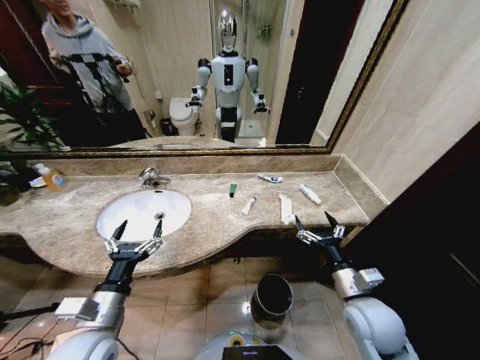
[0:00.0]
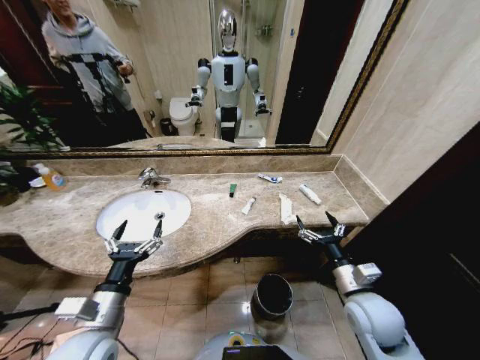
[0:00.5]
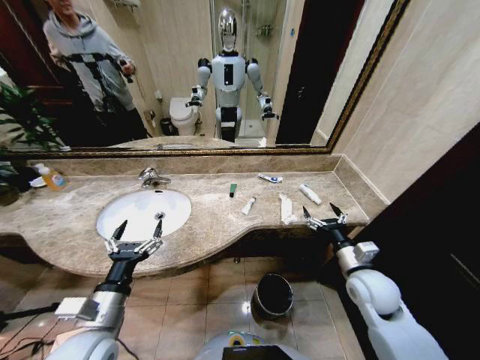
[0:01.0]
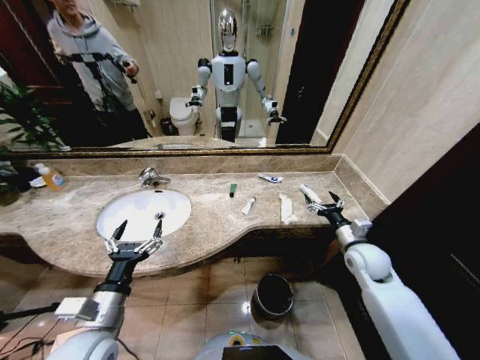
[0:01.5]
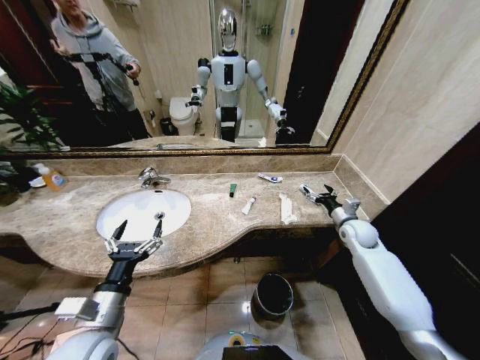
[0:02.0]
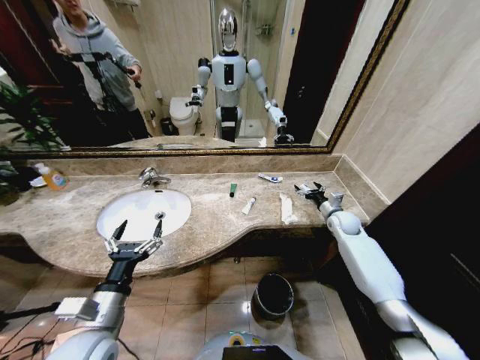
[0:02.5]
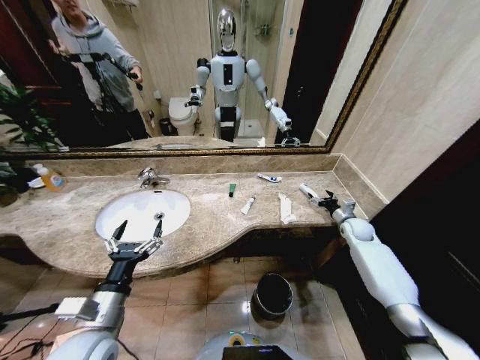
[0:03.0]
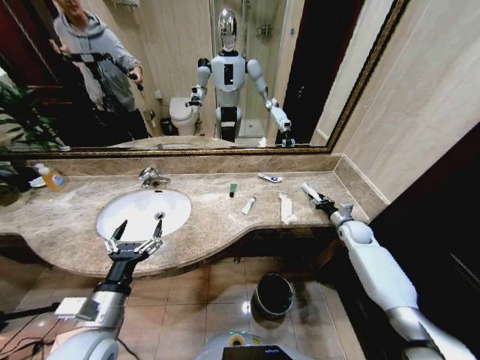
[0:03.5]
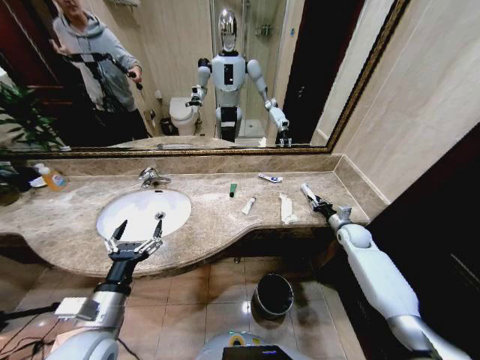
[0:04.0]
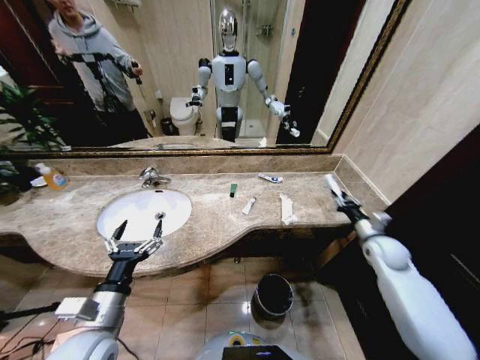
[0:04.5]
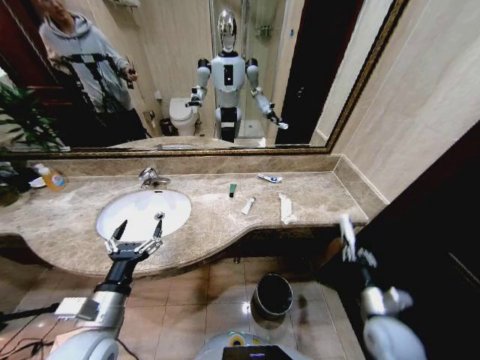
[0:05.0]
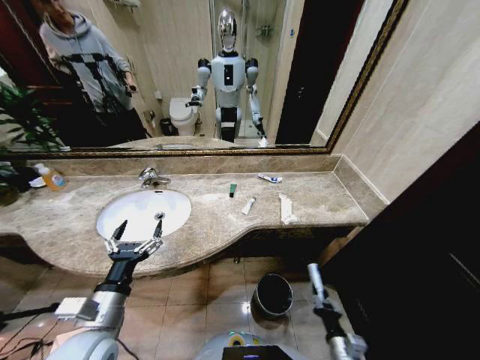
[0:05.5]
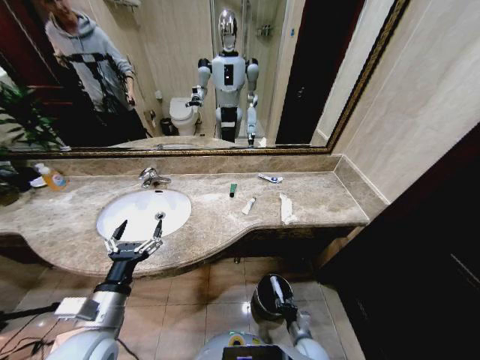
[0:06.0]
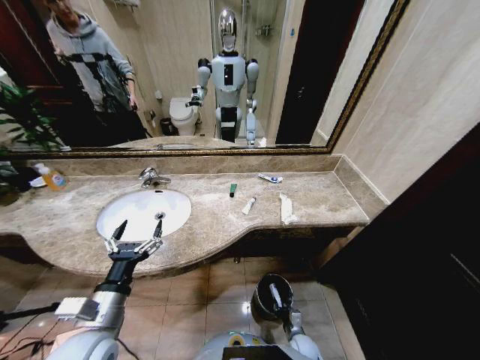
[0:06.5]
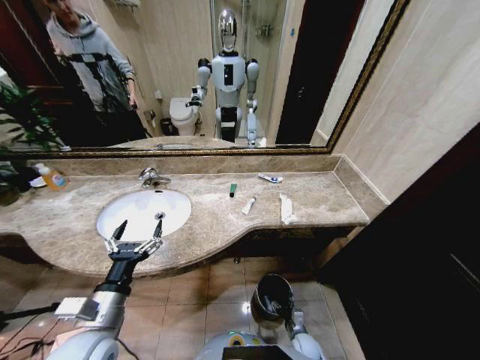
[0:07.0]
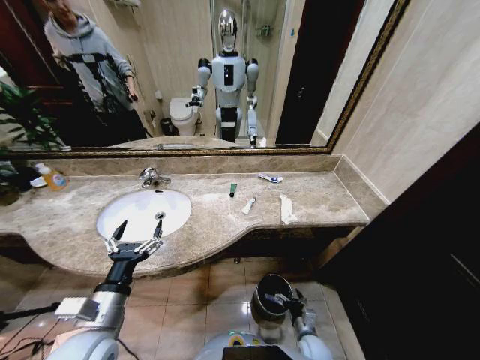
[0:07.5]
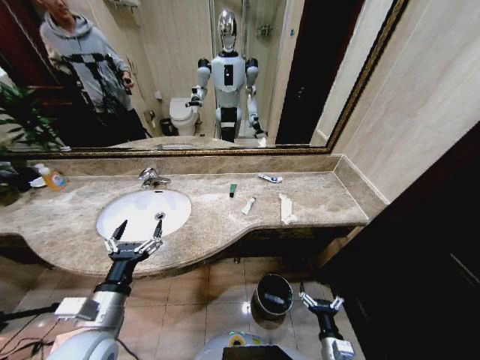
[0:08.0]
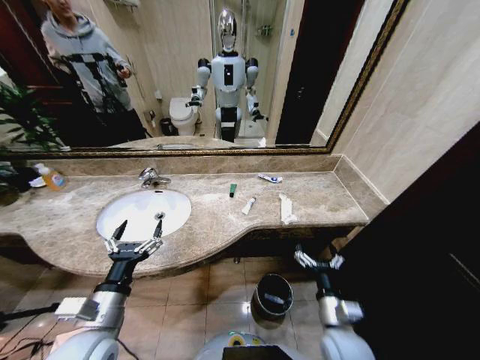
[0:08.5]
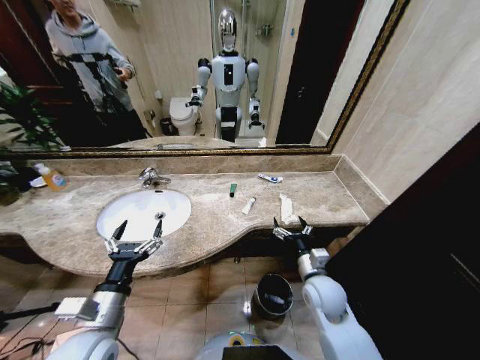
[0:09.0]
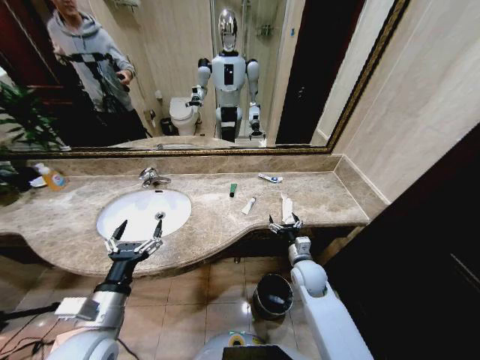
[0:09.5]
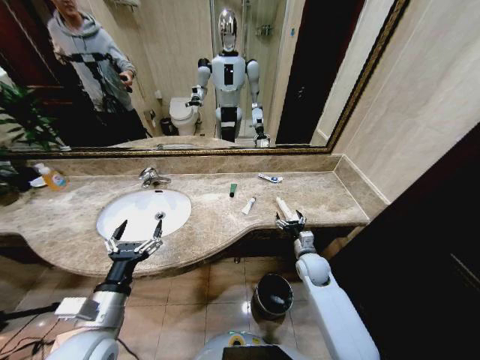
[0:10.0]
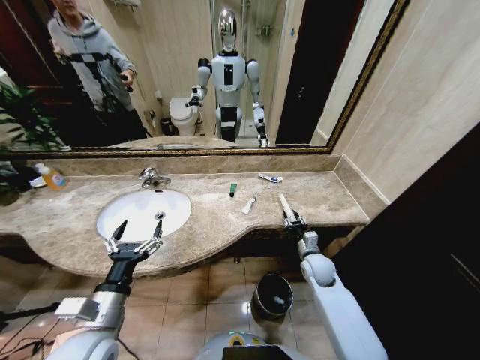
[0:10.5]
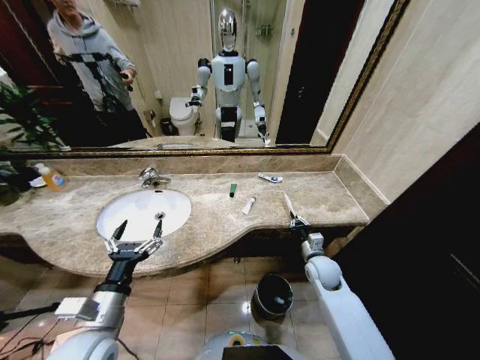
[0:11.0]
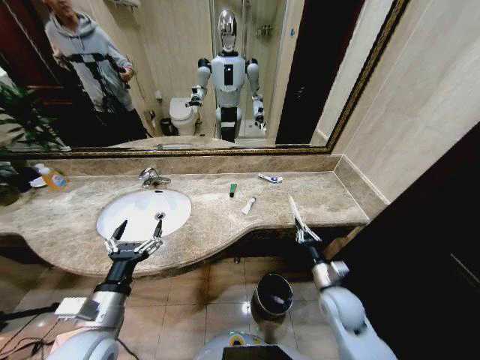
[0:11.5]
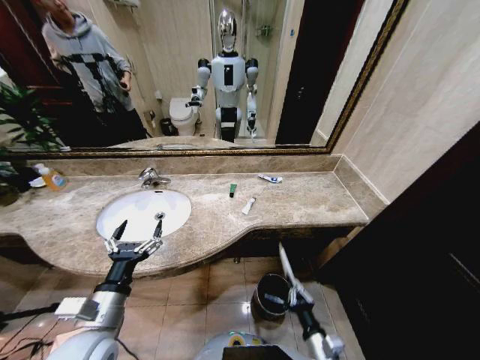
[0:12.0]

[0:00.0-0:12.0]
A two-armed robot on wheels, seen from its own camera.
Task of the whole recording: Pick up the trash from the sink and place it in the trash bin.
0:02.0 to 0:04.0: The right gripper goes some 5 cm downward, and closes.
0:04.0 to 0:06.0: The right gripper is displaced backward, downward and to the left by about 40 cm.
0:06.0 to 0:08.0: The right gripper moves upward and backward, about 10 cm, and opens its fingers.
0:08.0 to 0:10.0: The right gripper moves forward, roughly 25 cm.
0:10.0 to 0:12.0: The right gripper heads backward, covering approximately 25 cm, and closes its fingers.

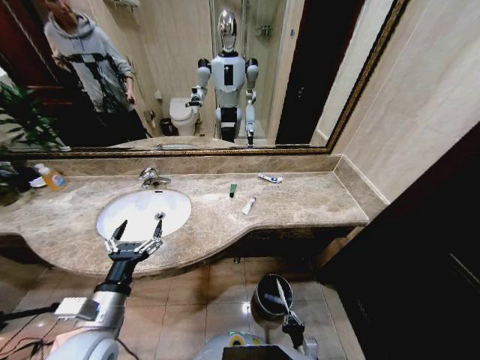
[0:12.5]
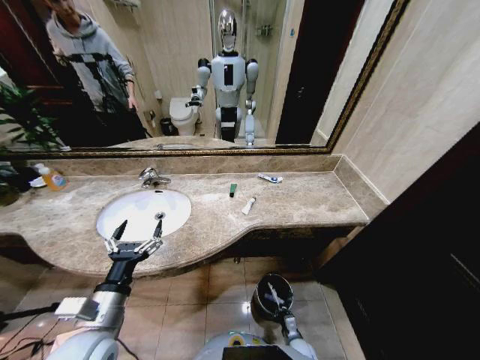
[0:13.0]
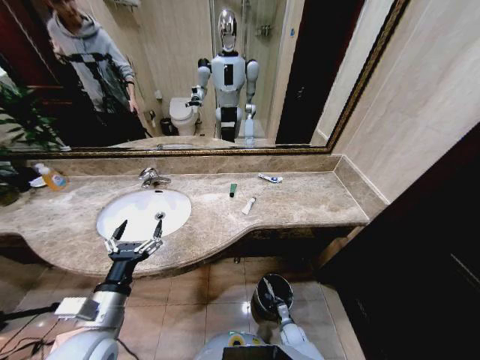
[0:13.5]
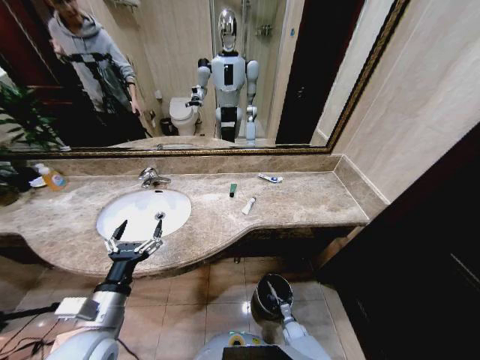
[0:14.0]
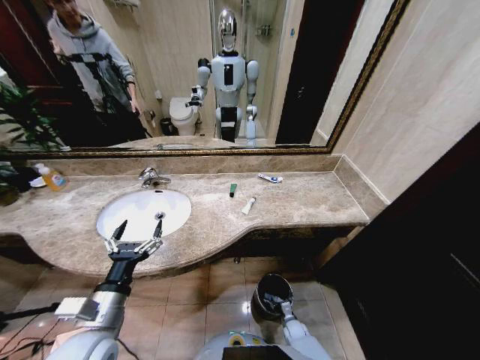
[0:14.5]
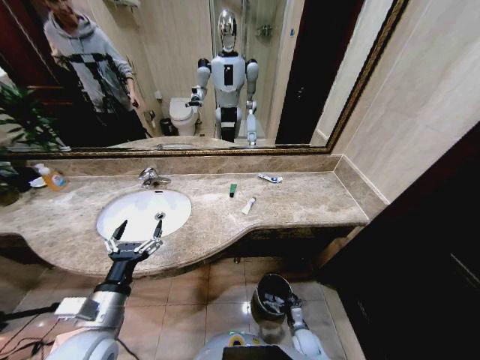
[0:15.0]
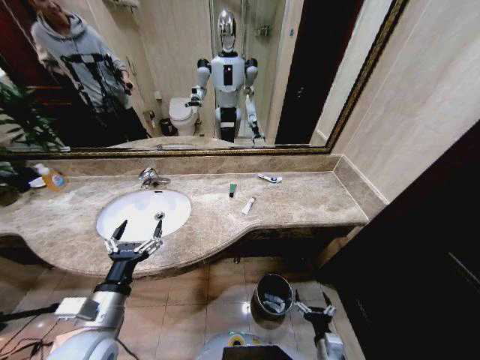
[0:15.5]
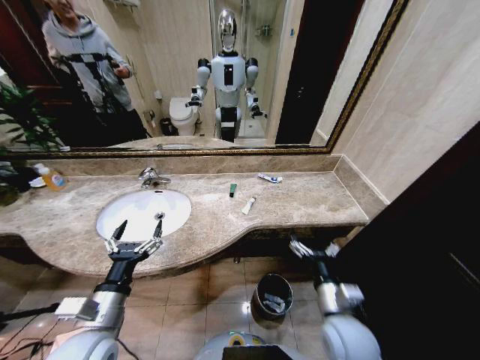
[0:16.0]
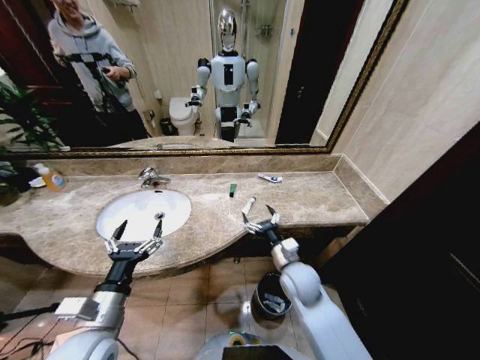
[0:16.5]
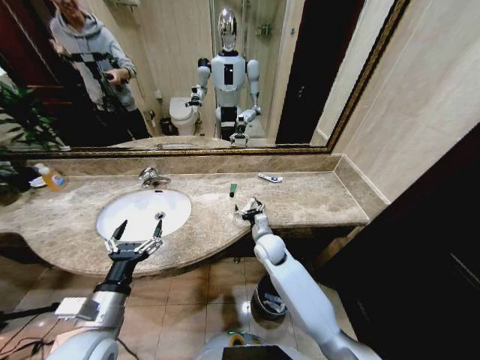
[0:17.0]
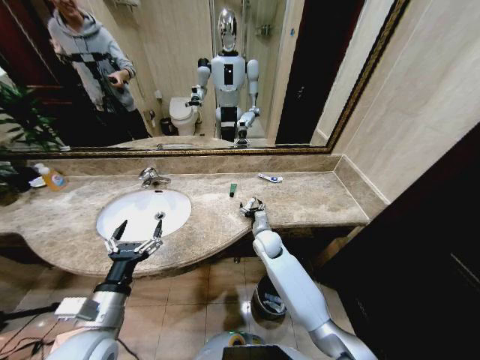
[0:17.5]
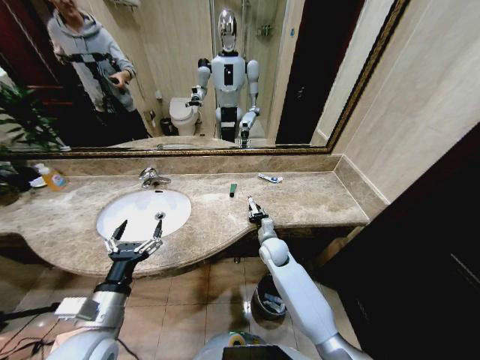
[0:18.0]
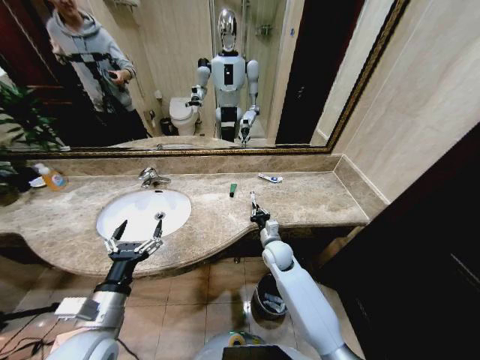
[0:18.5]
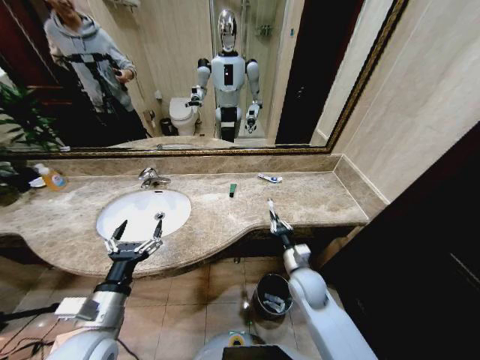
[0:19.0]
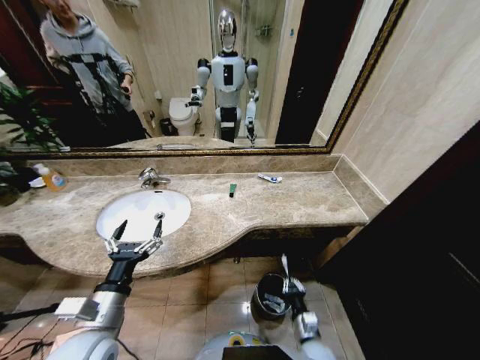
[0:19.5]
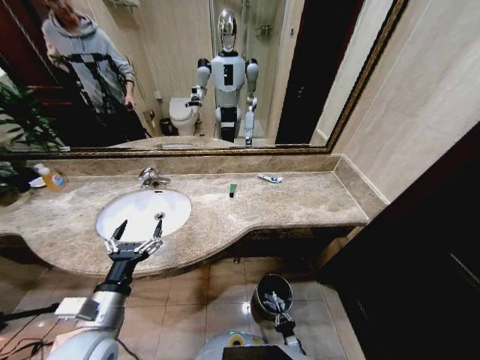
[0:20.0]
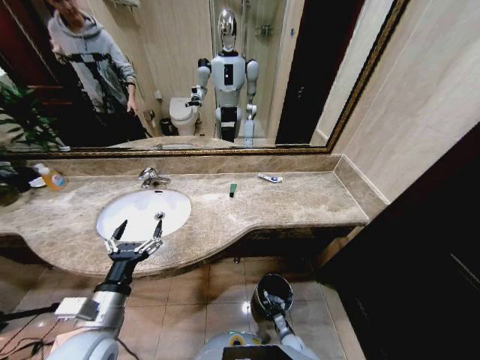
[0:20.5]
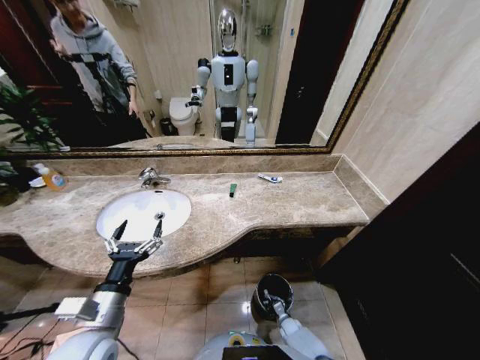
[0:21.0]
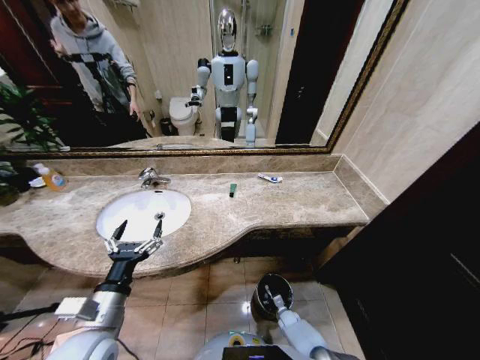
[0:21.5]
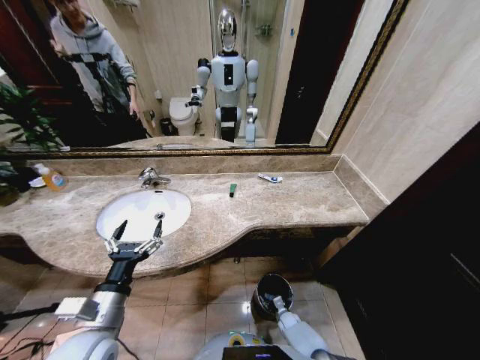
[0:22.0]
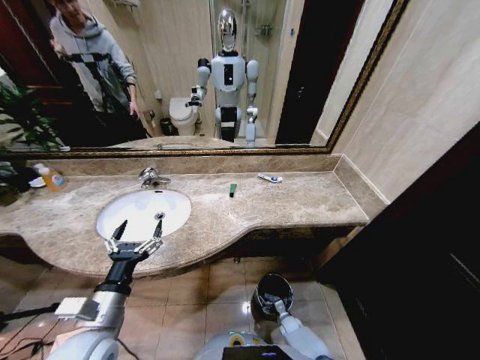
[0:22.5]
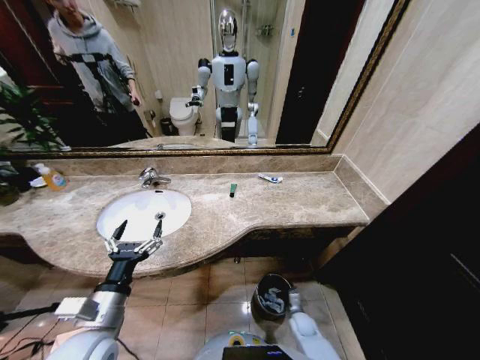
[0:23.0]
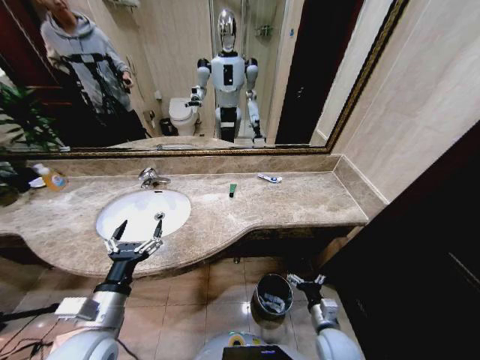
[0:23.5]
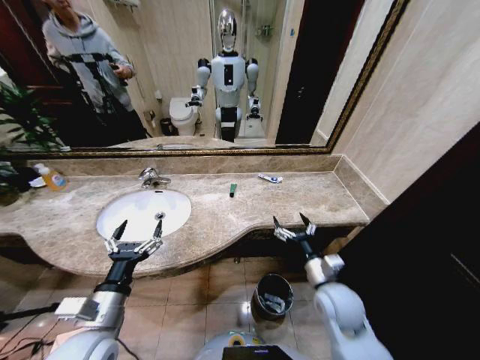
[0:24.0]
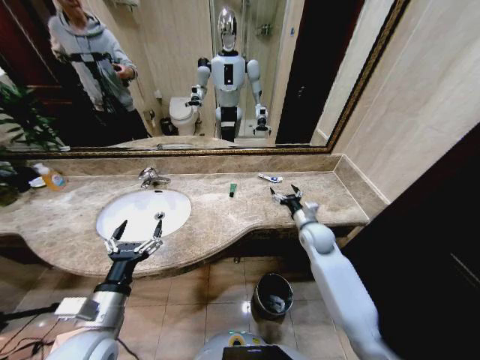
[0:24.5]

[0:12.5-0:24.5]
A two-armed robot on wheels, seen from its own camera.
Task of the whole recording: Pick up the trash from the sink and place it in the trash bin.
0:12.5 to 0:14.5: The right gripper goes about 20 cm forward and downward, and opens.
0:14.5 to 0:16.5: The right gripper goes about 40 cm upward, and opens its fingers.
0:16.5 to 0:18.5: The right gripper moves forward and downward, about 10 cm, and closes its fingers.
0:18.5 to 0:20.5: The right gripper is displaced downward and backward by approximately 40 cm.
0:20.5 to 0:22.5: The right gripper goes about 5 cm forward, and opens up.
0:22.5 to 0:24.5: The right gripper travels upward and forward by about 50 cm.

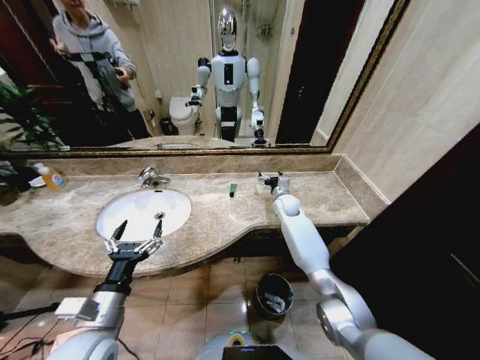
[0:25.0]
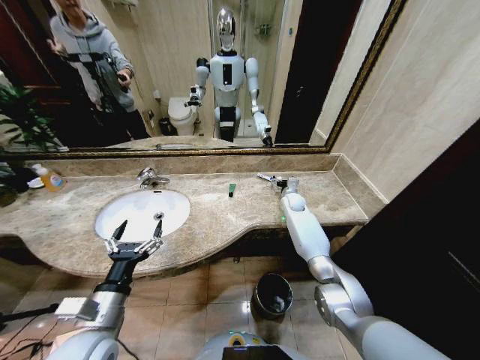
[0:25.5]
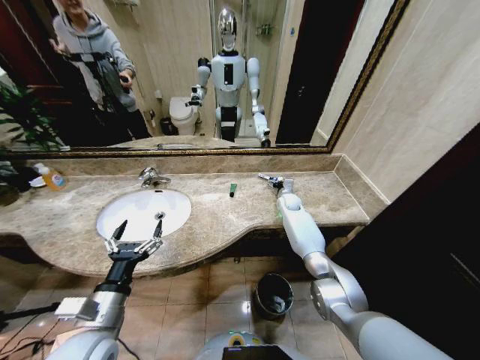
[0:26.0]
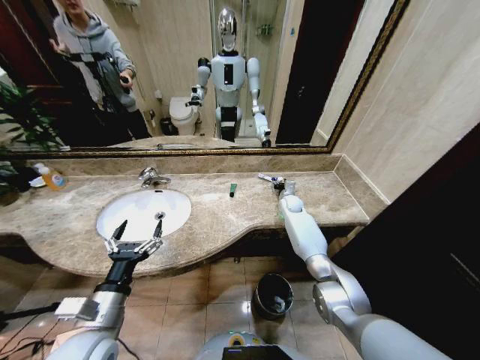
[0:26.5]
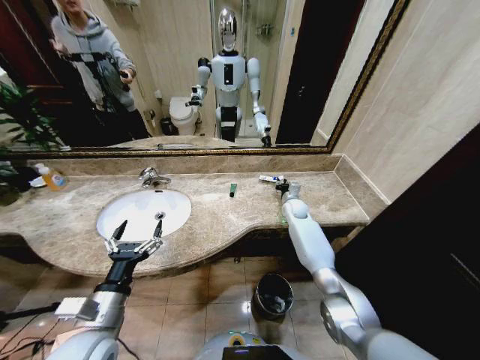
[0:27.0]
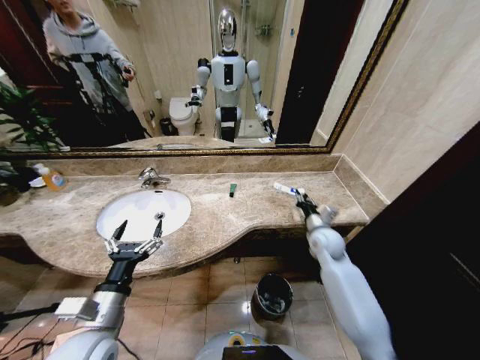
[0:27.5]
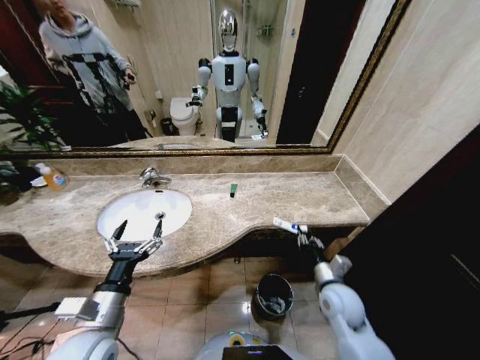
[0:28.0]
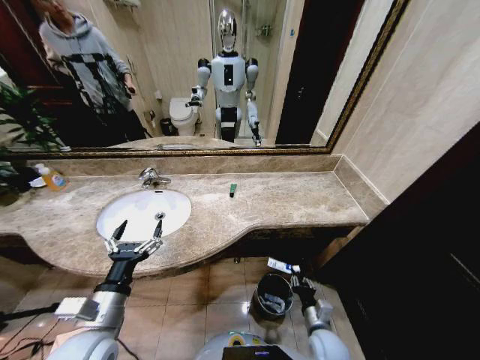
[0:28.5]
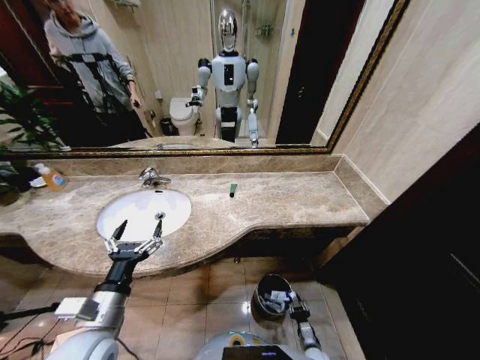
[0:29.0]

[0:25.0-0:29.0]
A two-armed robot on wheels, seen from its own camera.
Task of the whole recording: Pick up the trash from the sink and place it in the trash bin.
0:25.0 to 0:27.0: The right gripper ends up some 5 cm from where it was, and closes its fingers.
0:27.0 to 0:29.0: The right gripper is displaced backward and downward by about 60 cm.
